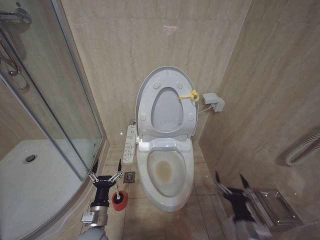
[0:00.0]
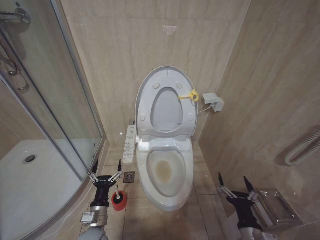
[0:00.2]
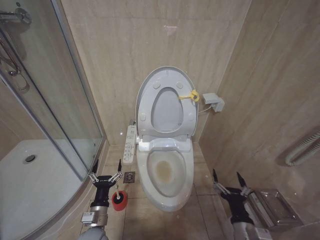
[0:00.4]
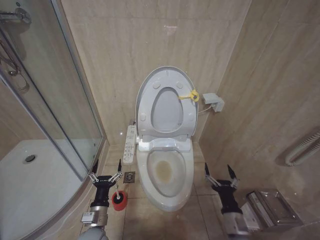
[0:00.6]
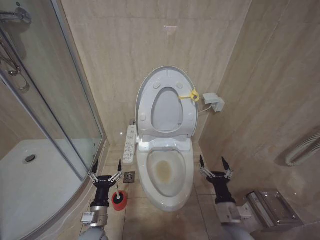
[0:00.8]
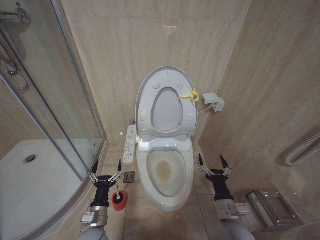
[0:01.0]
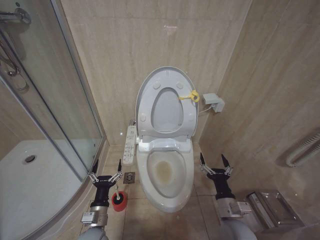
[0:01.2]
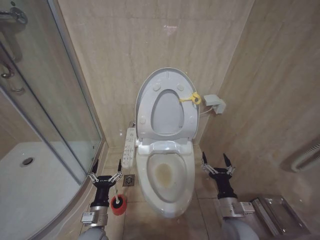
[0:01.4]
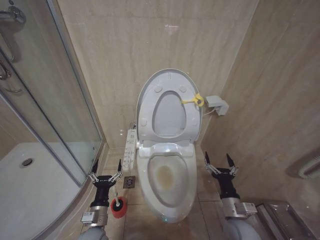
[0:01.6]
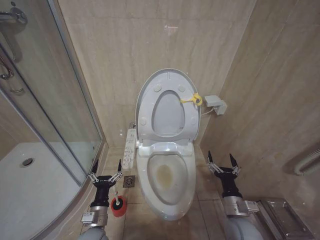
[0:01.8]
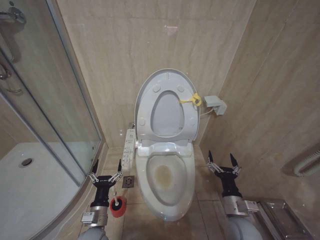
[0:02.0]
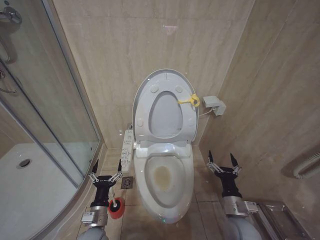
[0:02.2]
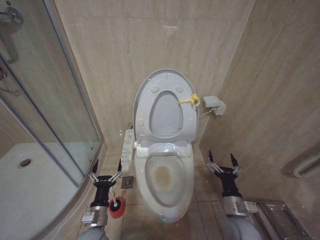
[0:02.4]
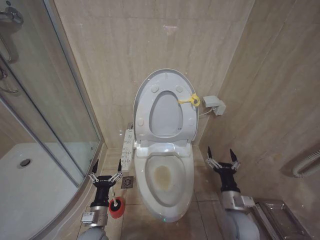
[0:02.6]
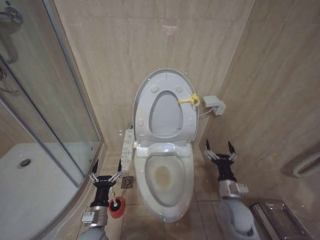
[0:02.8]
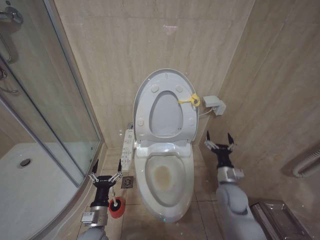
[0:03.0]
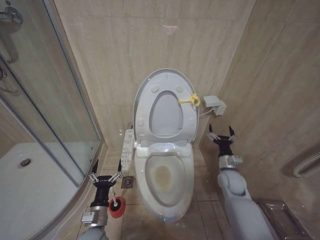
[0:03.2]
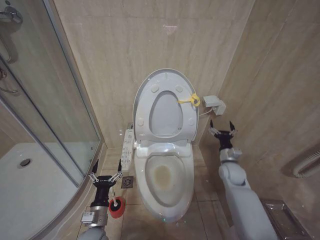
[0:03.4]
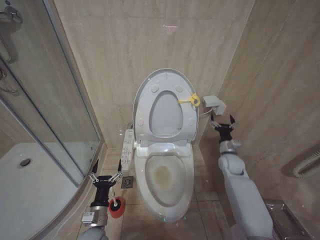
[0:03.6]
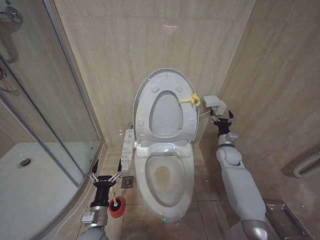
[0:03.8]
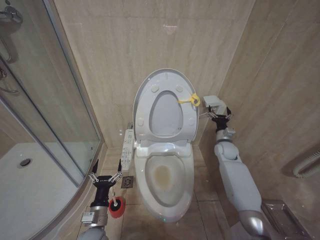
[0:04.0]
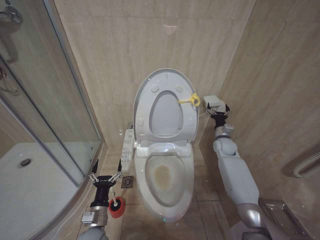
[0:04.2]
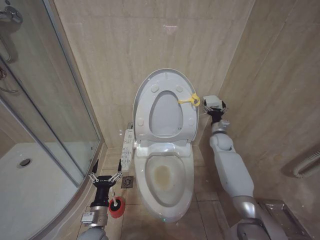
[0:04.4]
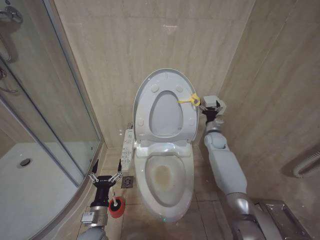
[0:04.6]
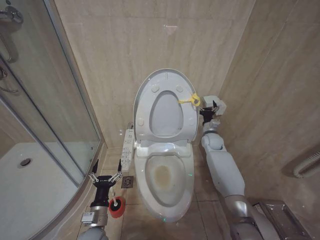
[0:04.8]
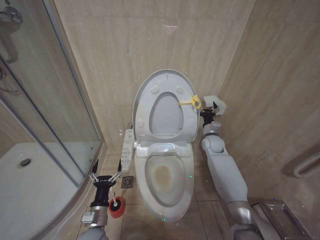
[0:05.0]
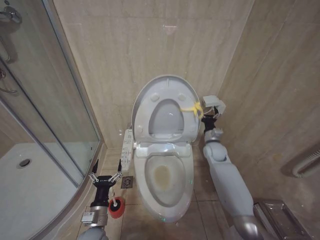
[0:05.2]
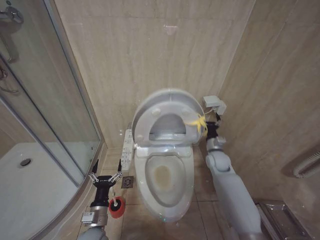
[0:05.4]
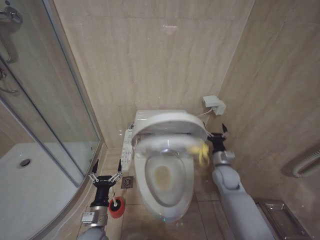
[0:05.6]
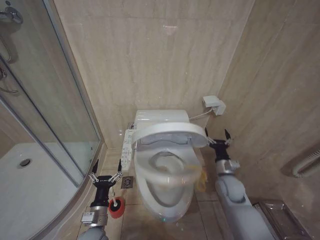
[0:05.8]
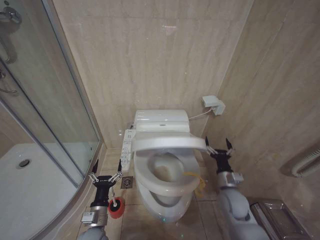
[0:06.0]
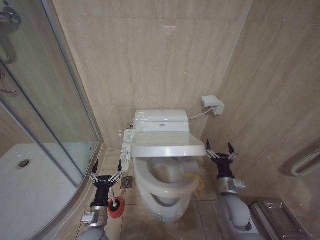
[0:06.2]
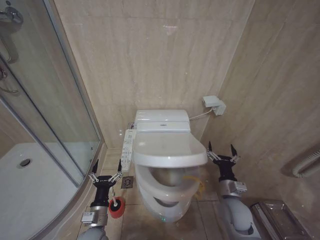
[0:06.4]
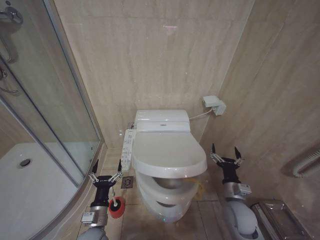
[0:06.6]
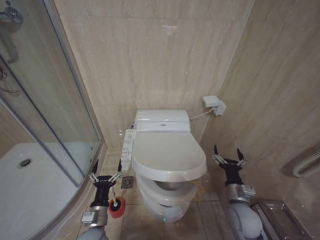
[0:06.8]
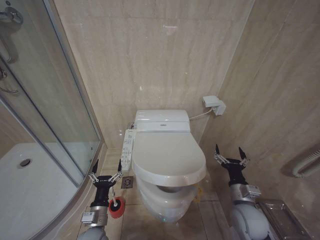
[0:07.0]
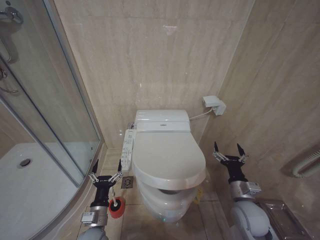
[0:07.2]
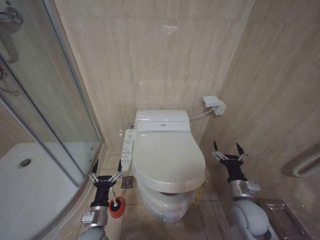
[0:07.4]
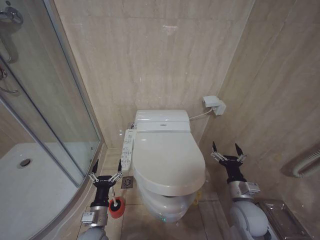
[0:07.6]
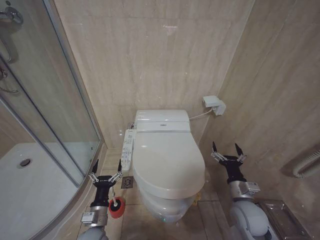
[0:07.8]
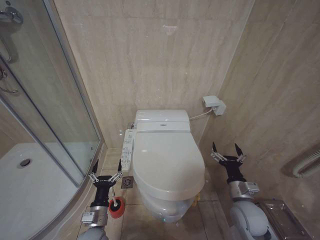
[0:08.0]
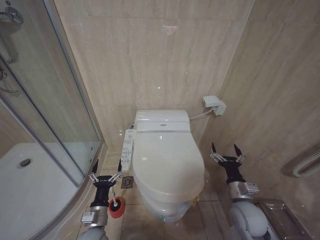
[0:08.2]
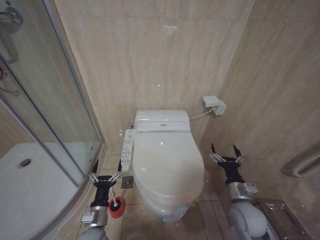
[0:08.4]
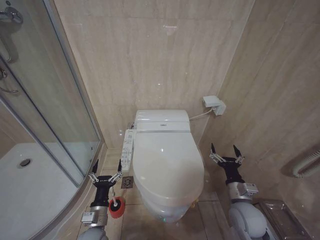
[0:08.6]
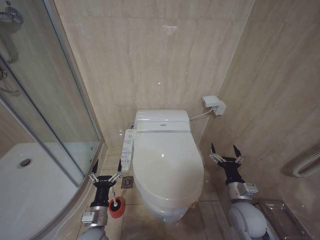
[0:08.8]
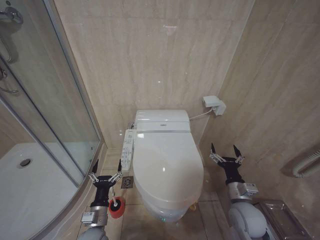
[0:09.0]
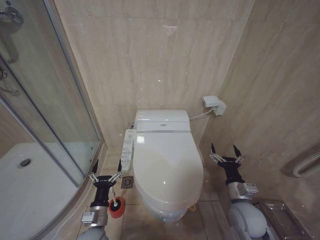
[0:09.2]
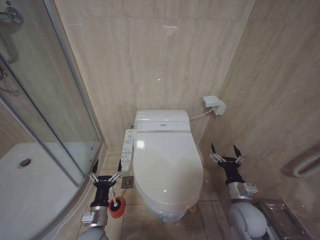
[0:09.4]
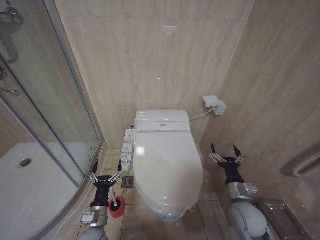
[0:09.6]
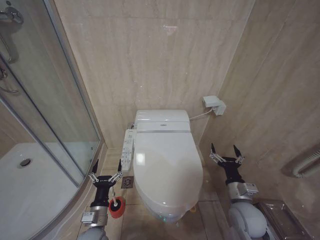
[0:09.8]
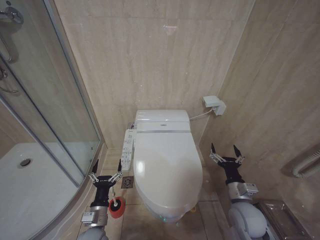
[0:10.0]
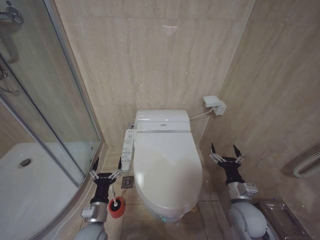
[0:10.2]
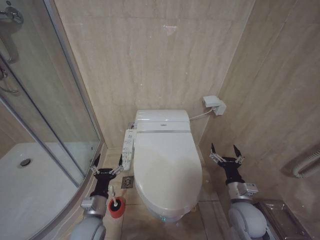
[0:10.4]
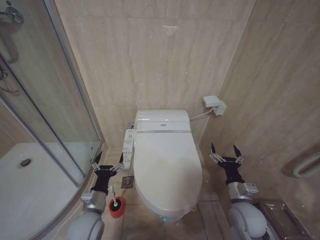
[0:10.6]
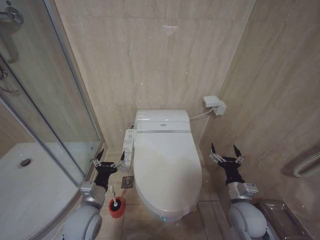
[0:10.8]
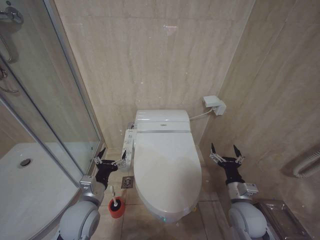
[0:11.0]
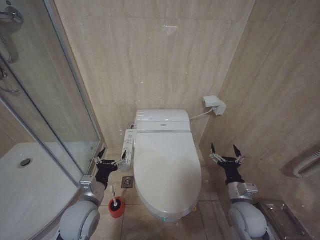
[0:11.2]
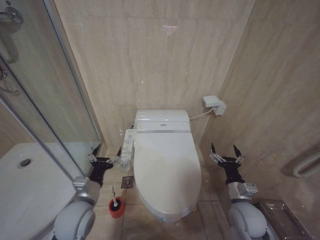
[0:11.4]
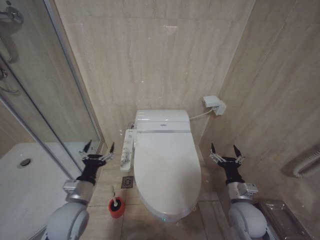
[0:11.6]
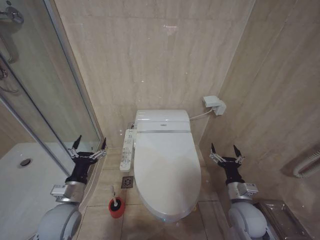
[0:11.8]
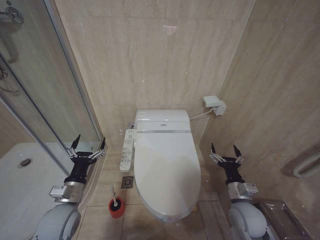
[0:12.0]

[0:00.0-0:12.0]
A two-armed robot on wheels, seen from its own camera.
Task of the whole recording: Open the toilet lid, clean the toilet bowl with a toilet brush, close the toilet lid, and flush.
0:00.0 to 0:01.6: The right gripper travels forward by some 5 cm.
0:01.6 to 0:03.0: The right gripper moves forward, approximately 10 cm.
0:03.0 to 0:04.4: The right gripper shifts approximately 25 cm forward.
0:04.4 to 0:06.0: The right gripper heads backward, covering roughly 20 cm.
0:06.0 to 0:07.6: The right gripper heads backward, covering some 5 cm.
0:07.6 to 0:09.0: The two grippers keep their place.
0:09.0 to 0:10.4: The grippers make only small movements.
0:10.4 to 0:12.0: The left gripper travels upward and to the left by approximately 10 cm.

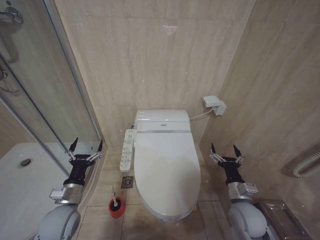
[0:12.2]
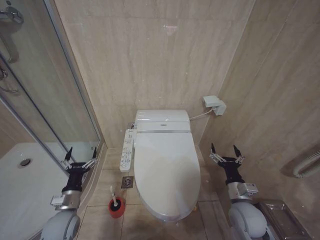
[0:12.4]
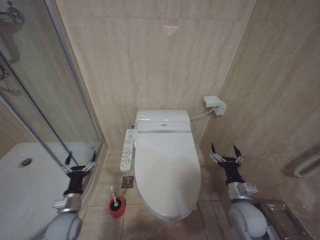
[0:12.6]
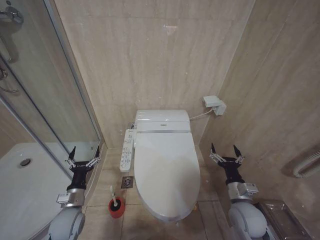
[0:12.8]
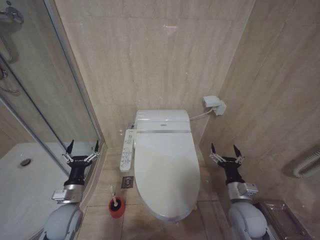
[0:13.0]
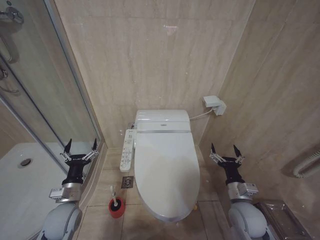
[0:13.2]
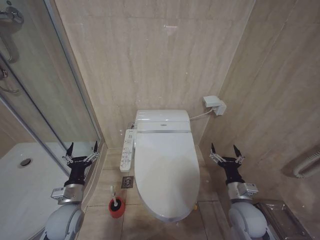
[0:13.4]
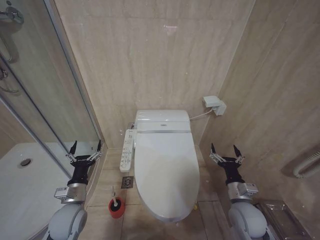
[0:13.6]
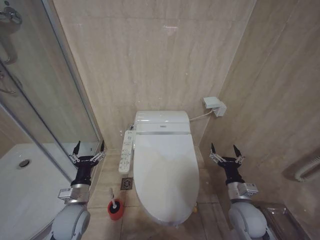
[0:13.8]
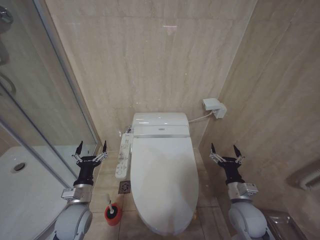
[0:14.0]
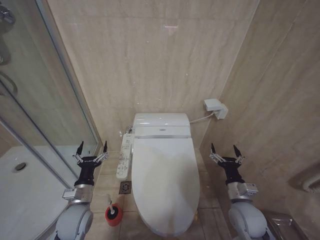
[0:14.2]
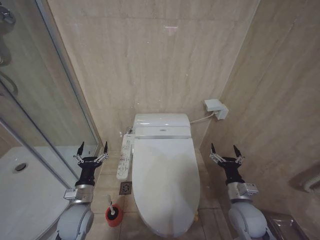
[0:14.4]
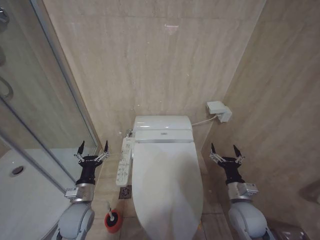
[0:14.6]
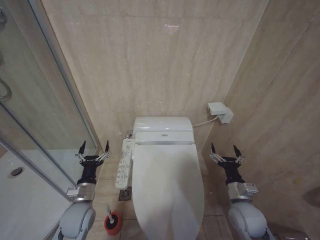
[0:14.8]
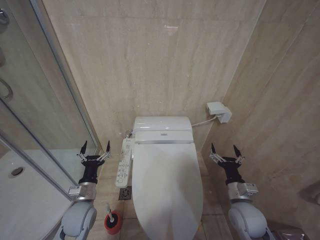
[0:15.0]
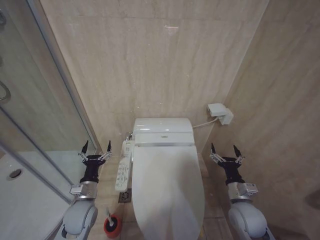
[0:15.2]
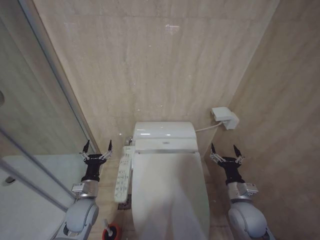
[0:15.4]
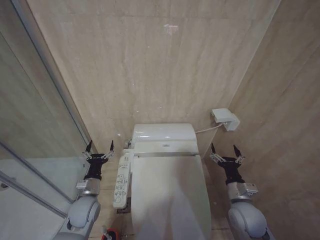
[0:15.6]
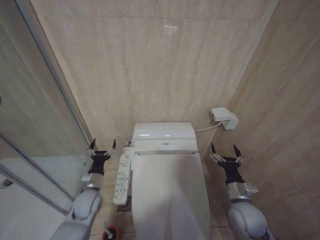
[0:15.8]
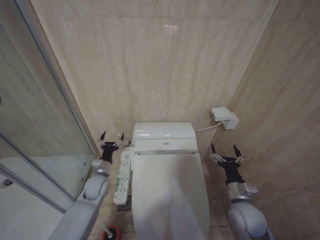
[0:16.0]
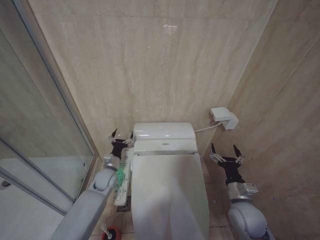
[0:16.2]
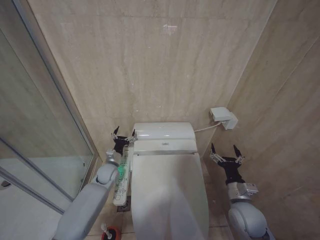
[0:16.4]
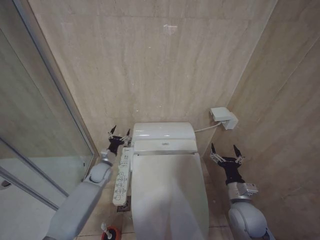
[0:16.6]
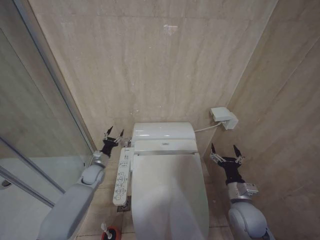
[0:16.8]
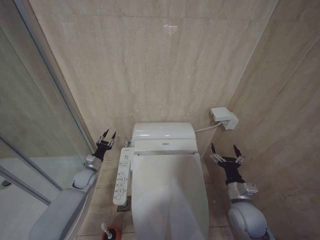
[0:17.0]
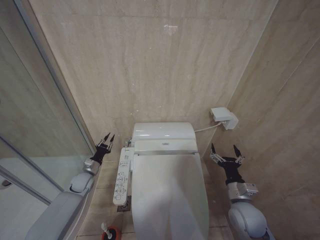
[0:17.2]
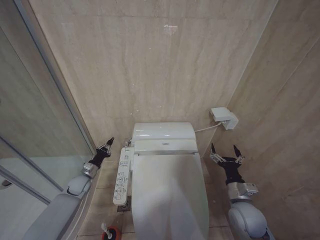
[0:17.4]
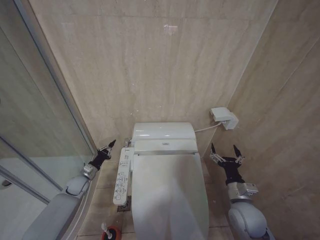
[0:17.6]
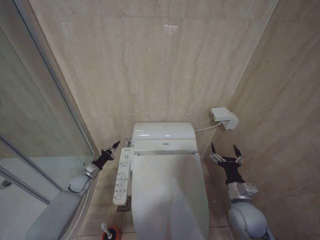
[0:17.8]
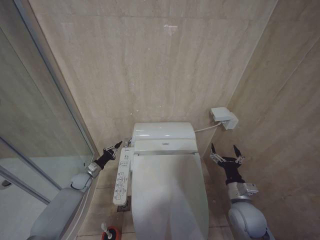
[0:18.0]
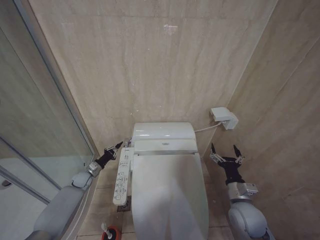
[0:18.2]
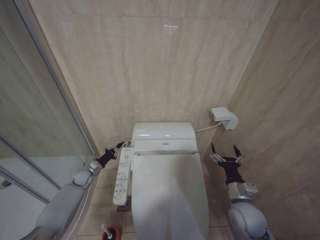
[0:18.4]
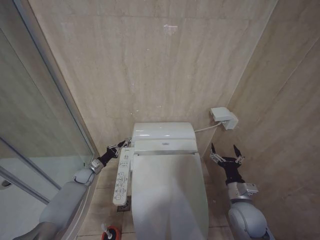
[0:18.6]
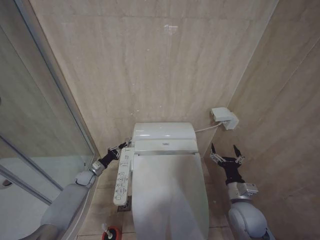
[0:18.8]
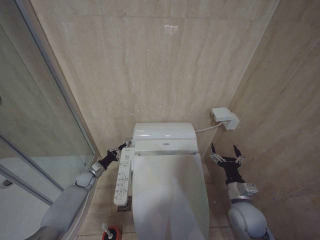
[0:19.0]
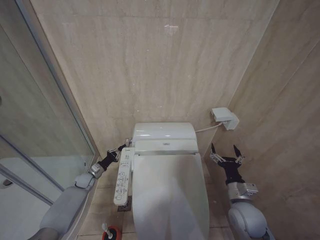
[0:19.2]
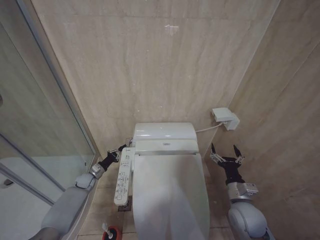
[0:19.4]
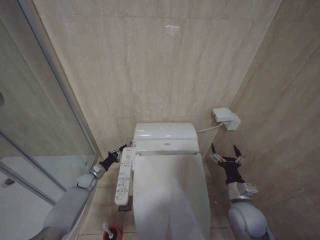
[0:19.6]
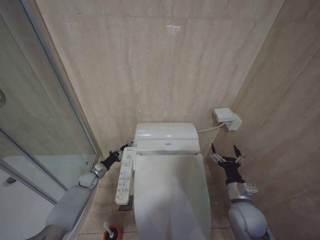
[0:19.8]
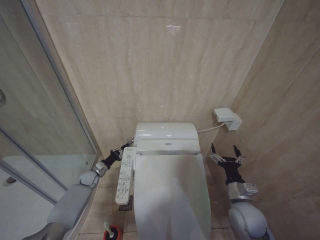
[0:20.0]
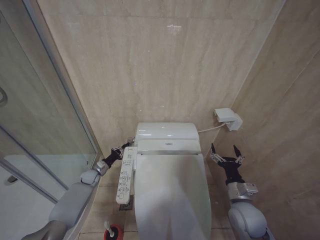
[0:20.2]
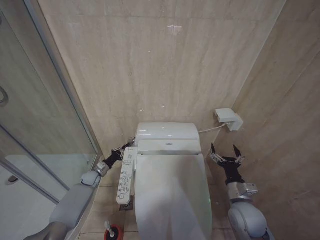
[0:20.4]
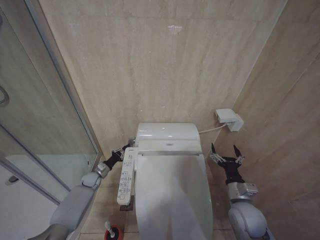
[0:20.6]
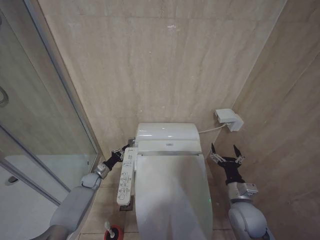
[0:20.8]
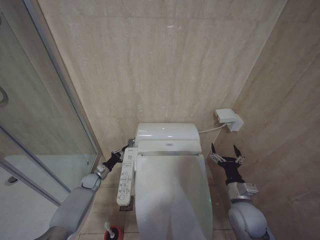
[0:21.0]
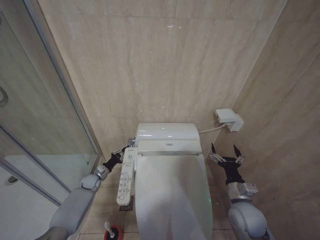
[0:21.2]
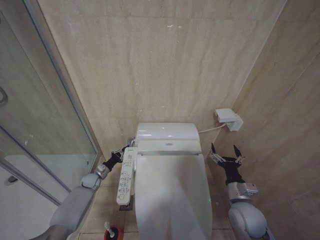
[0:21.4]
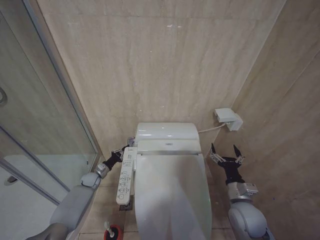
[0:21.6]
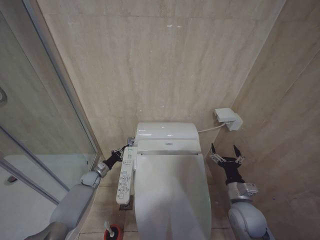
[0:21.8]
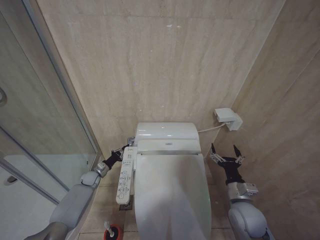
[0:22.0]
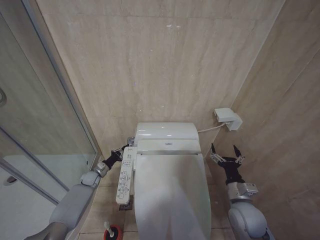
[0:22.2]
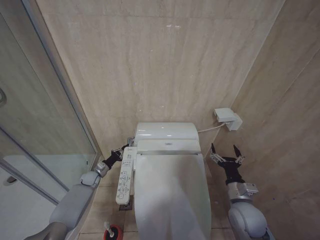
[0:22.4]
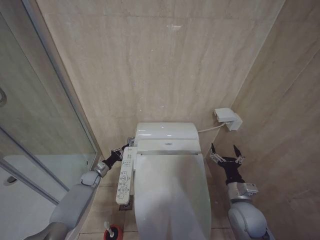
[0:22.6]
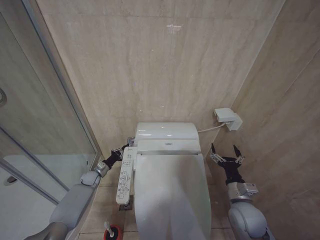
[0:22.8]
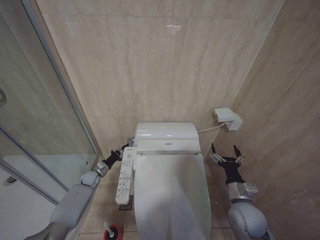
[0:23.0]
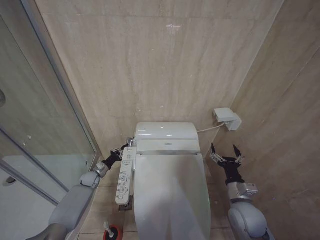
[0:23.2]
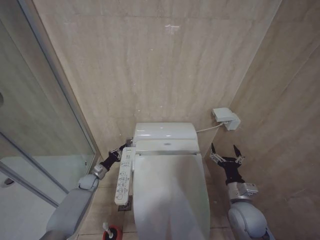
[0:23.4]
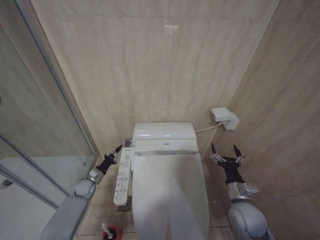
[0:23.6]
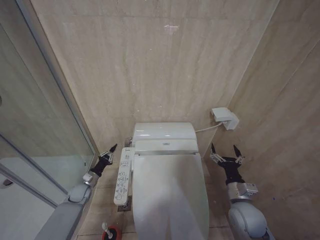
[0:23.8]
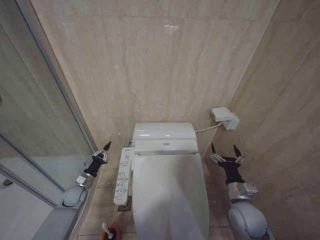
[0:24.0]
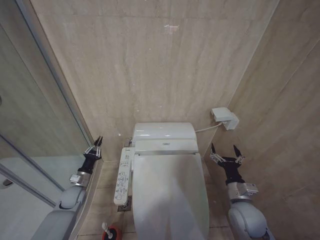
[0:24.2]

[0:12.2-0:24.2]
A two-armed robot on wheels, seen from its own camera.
Task of the whole recording: Open the toilet lid, clean the toilet bowl with a toilet brush, close the toilet lid, and flush.
0:13.8 to 0:15.2: The grippers move only a little.
0:15.2 to 0:16.6: The left gripper moves forward, roughly 20 cm.
0:16.6 to 0:18.2: The left gripper moves to the left and downward, approximately 15 cm, and closes.
0:18.2 to 0:22.6: The grippers stay close to where they were, moving slightly.
0:22.6 to 0:24.2: The left gripper goes approximately 10 cm backward.
